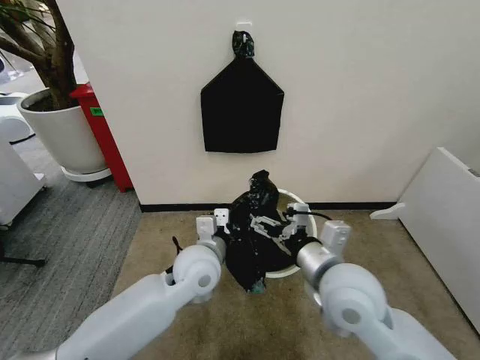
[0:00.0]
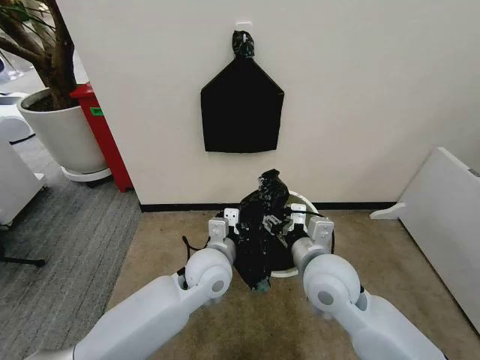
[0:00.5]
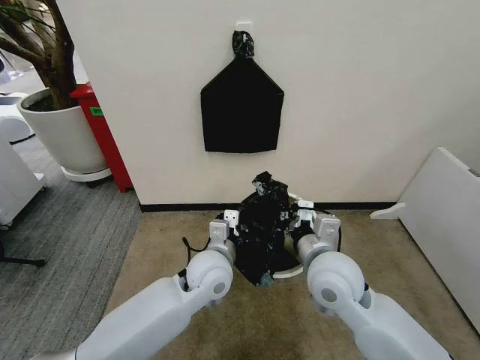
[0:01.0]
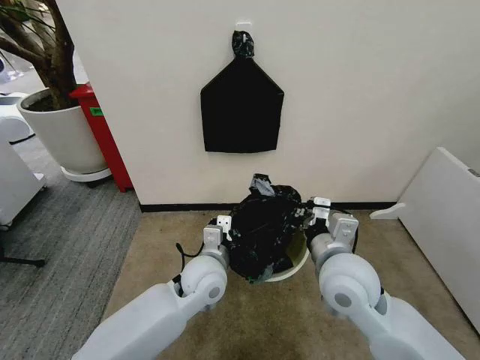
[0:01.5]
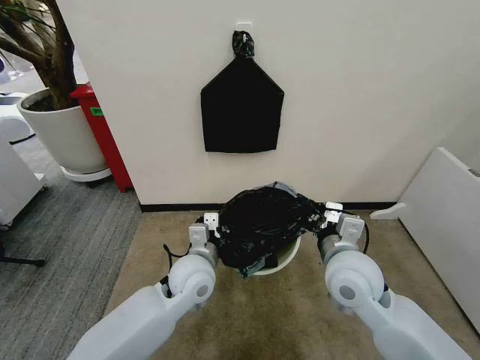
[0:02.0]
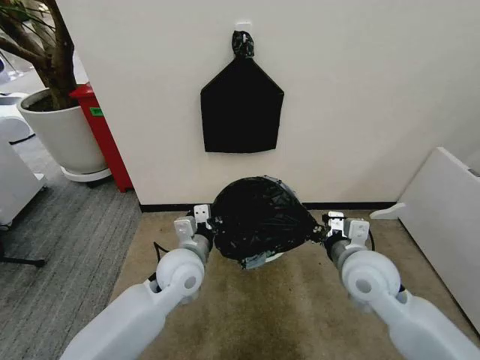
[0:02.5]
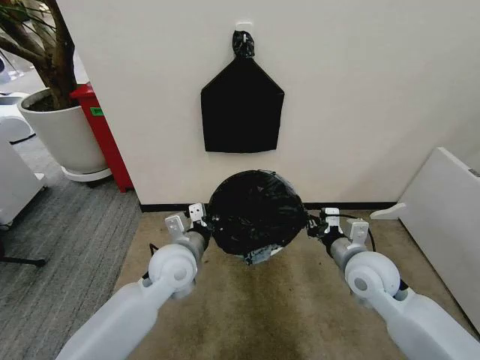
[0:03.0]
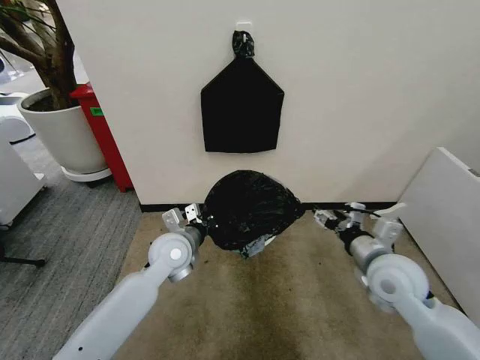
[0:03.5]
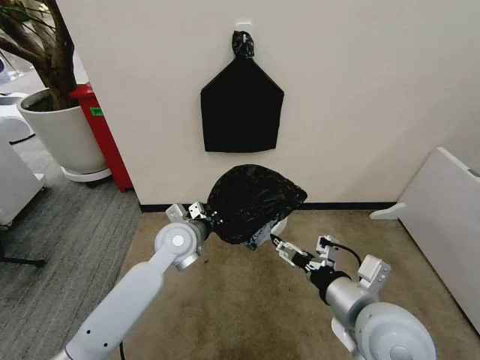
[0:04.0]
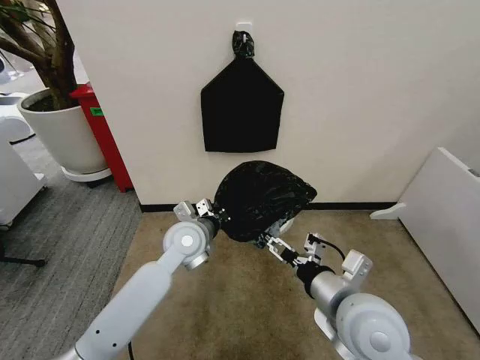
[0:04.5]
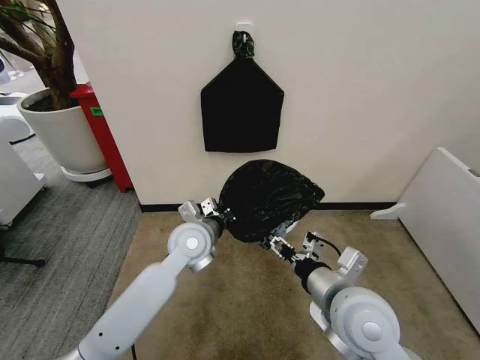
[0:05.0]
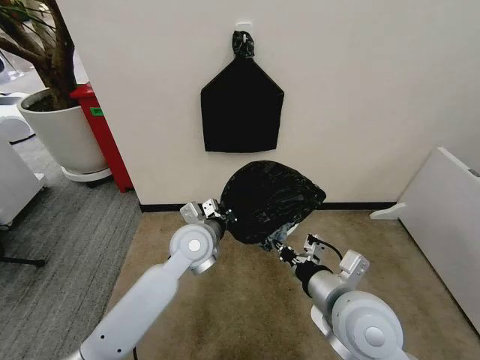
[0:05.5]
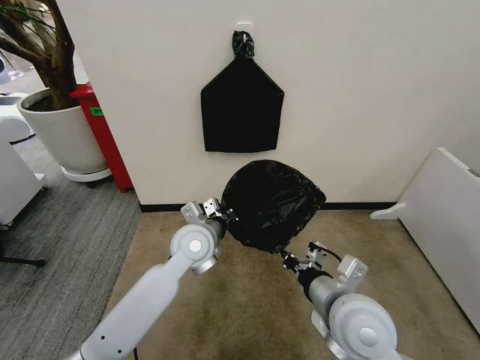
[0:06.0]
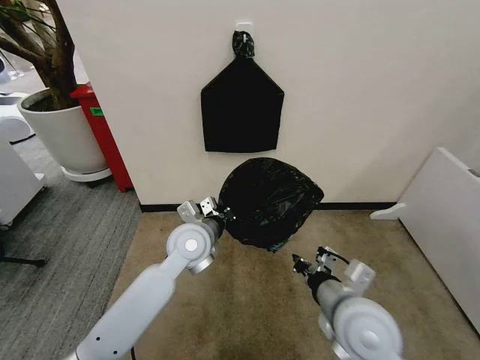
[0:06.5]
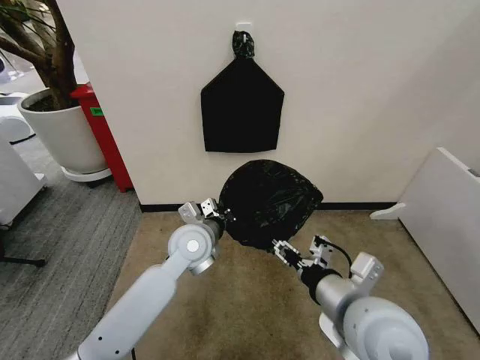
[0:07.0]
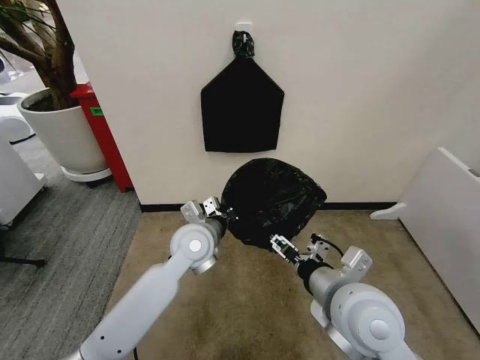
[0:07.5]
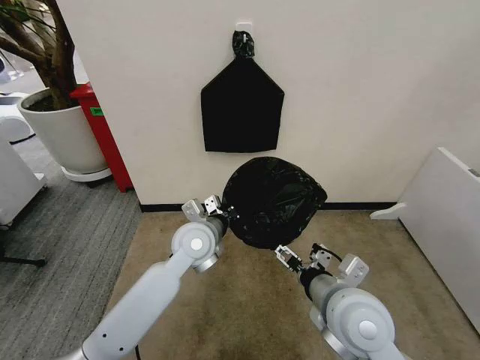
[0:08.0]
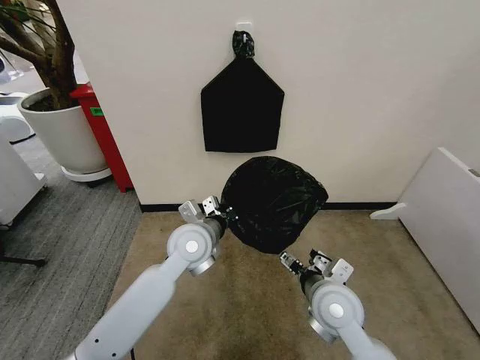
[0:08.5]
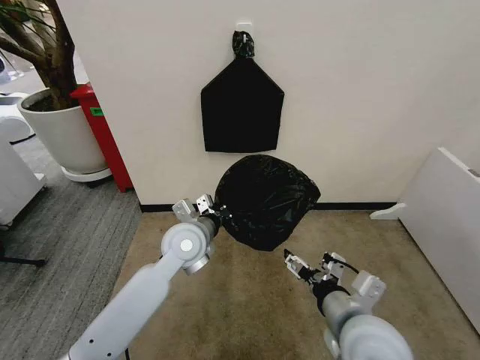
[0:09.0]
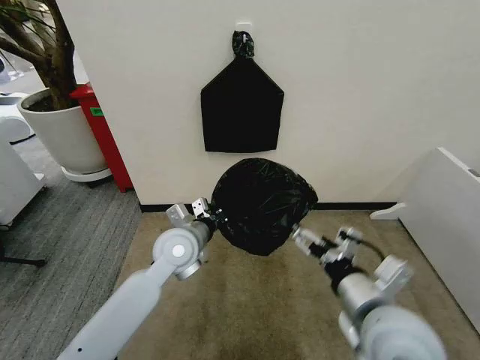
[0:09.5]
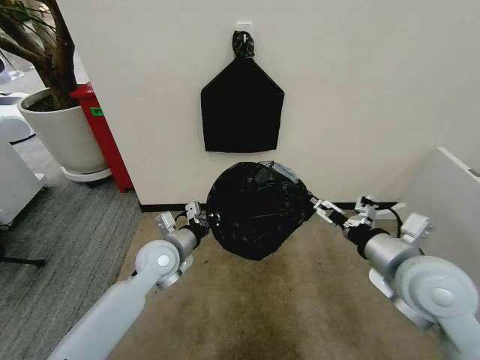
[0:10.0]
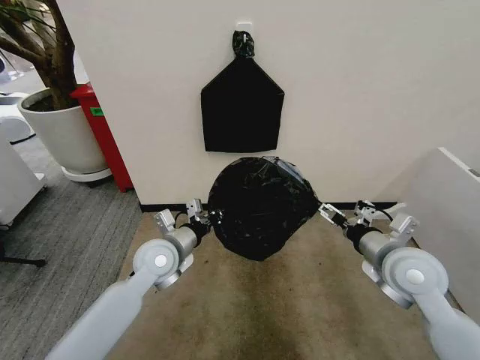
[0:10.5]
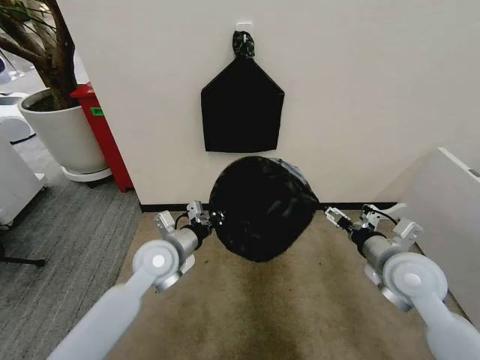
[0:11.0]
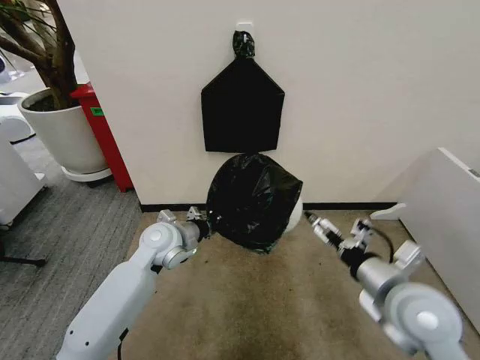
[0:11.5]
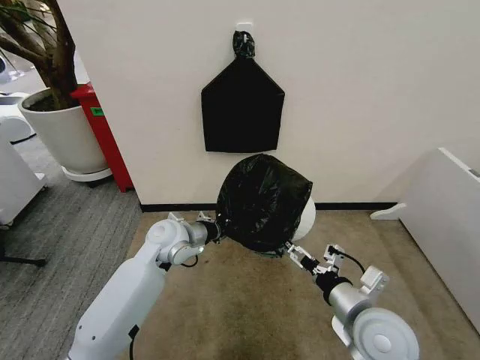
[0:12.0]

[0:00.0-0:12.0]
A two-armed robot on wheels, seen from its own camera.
Task of the whole recording: Place the garbage bag over the trash bin.
0:00.0 to 0:02.0: The right gripper shifts by roughly 5 cm, and closes its fingers.
0:02.0 to 0:04.0: The left gripper travels forward by approximately 5 cm; the right gripper heads backward, covering roughly 10 cm, and opens its fingers.
0:04.0 to 0:06.0: The left gripper ends up roughly 5 cm from where it was, while the right gripper closes up.
0:06.0 to 0:08.0: The right gripper opens.
0:08.0 to 0:10.0: The left gripper travels to the left by about 10 cm; the right gripper moves to the right and upward, approximately 10 cm.
0:10.0 to 0:12.0: The right gripper moves downward, some 10 cm.

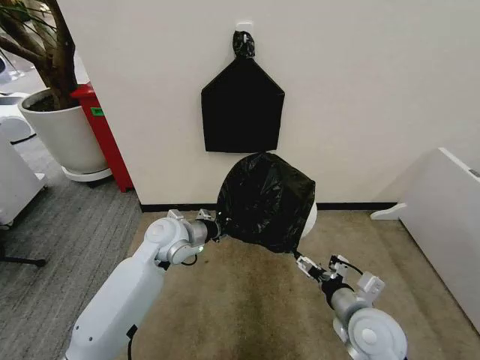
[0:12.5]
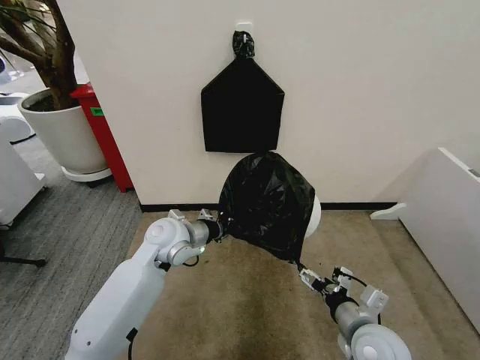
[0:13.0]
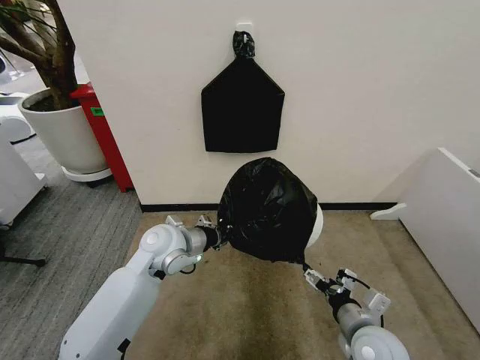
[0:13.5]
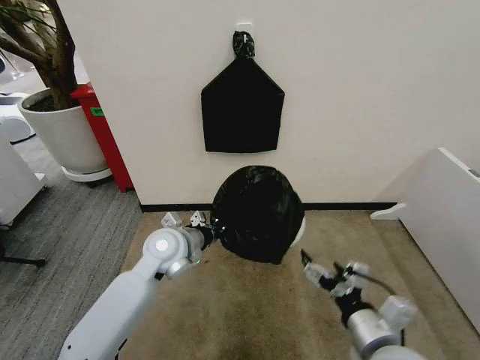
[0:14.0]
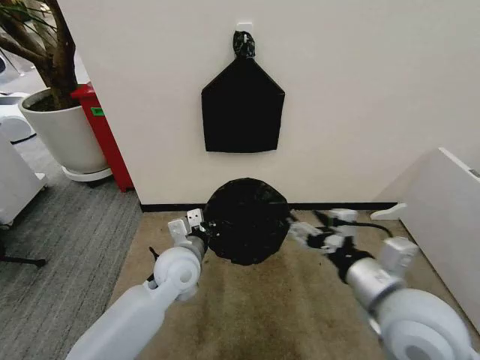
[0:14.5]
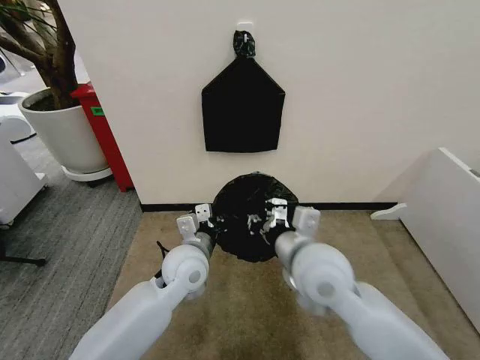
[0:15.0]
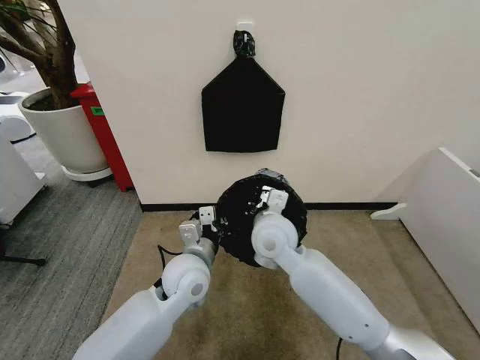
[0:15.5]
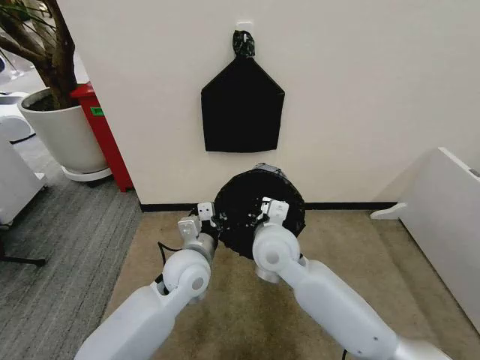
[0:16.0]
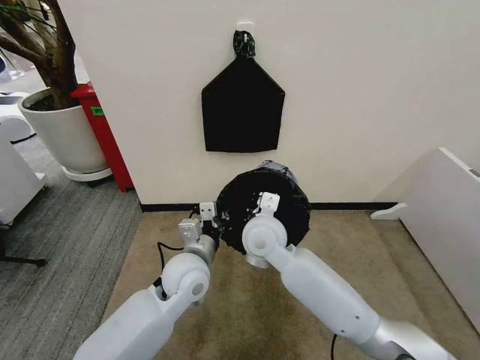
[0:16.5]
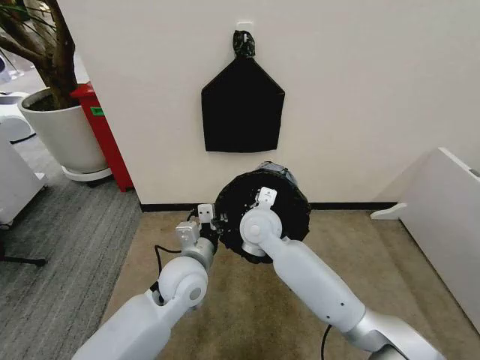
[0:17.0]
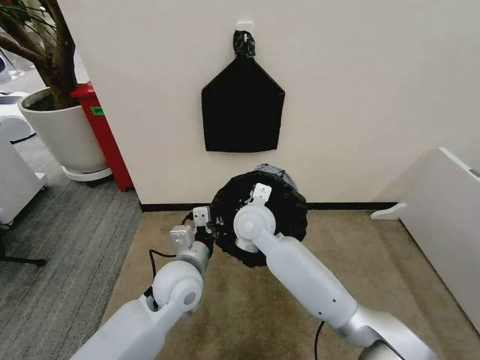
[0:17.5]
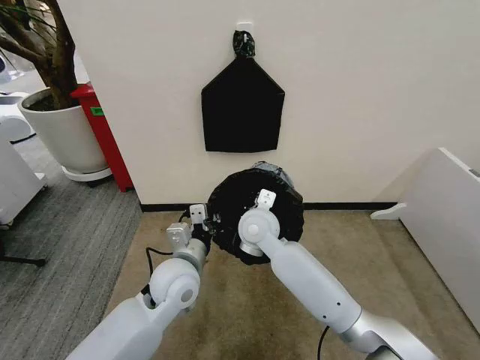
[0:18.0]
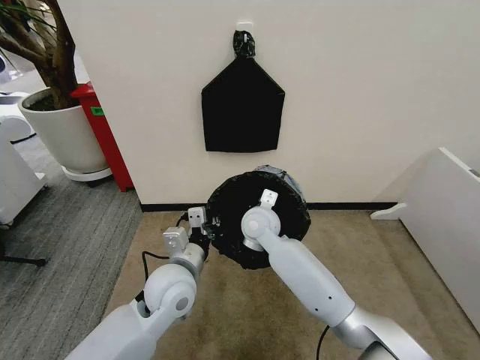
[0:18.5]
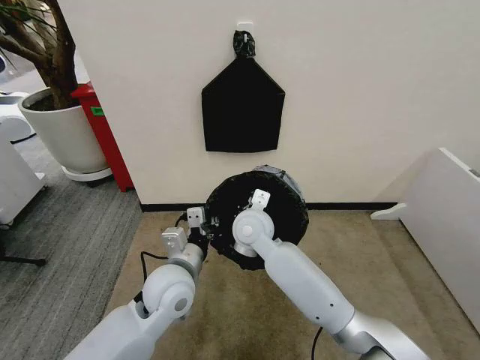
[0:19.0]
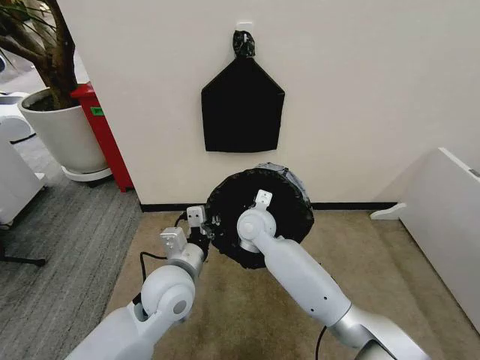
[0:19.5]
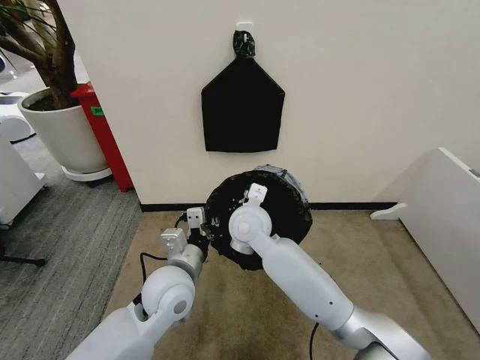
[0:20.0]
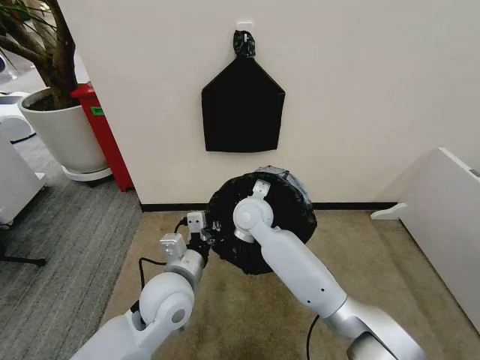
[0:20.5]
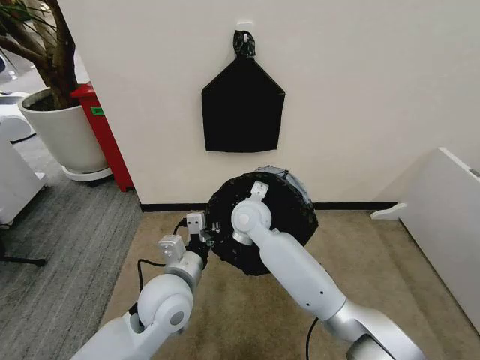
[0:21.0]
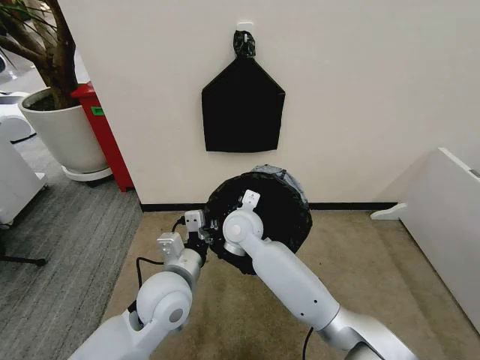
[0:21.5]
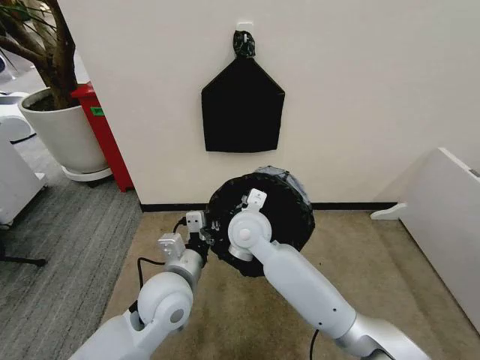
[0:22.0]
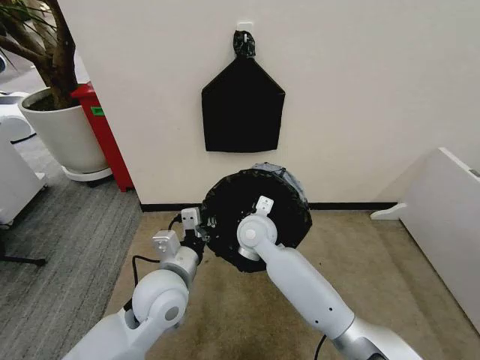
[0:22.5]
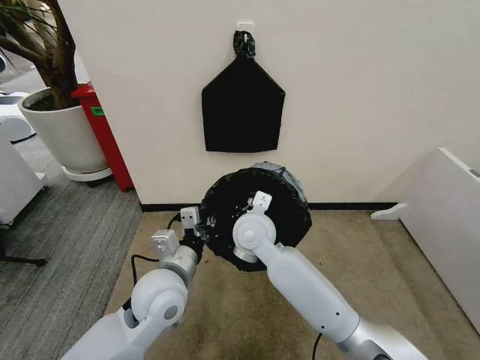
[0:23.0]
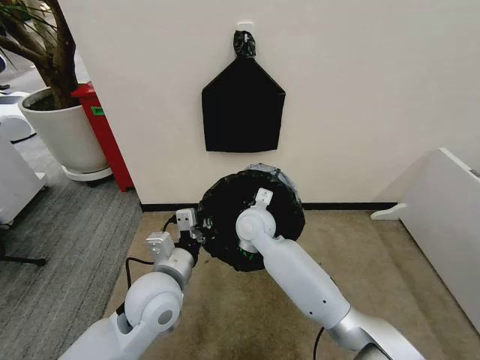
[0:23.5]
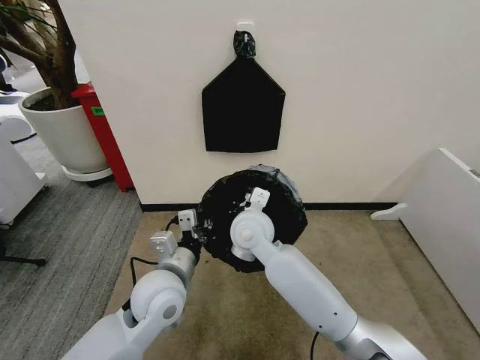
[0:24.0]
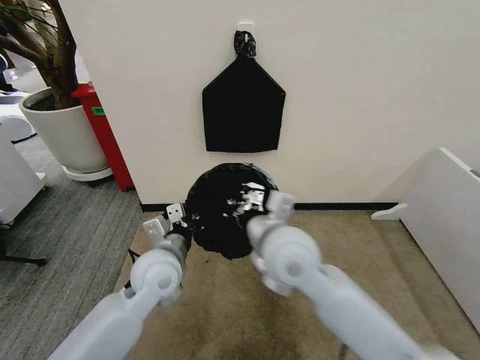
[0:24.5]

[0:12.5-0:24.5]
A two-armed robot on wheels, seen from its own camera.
Task of the whole recording: Place the garbage bag over the trash bin.
0:12.5 to 0:14.5: The right gripper goes approximately 15 cm upward. Meanwhile the left gripper moves backward, roughly 5 cm.
0:14.5 to 0:16.5: The right gripper goes roughly 25 cm to the left and forward, and closes.
0:16.5 to 0:18.5: The right gripper is displaced forward and downward by about 10 cm.
0:20.5 to 0:22.5: The grippers move only a little.
0:22.5 to 0:24.5: The right gripper heads backward and upward, covering roughly 15 cm.

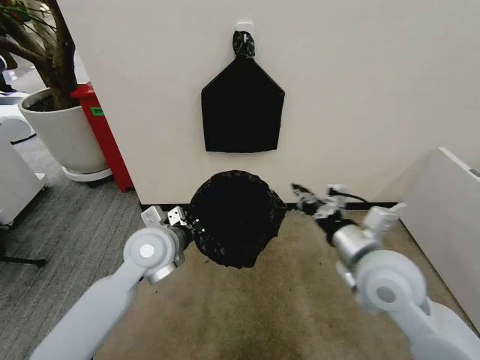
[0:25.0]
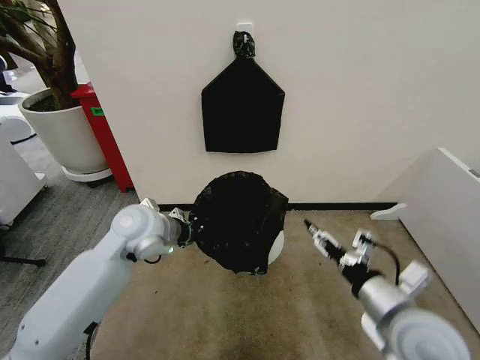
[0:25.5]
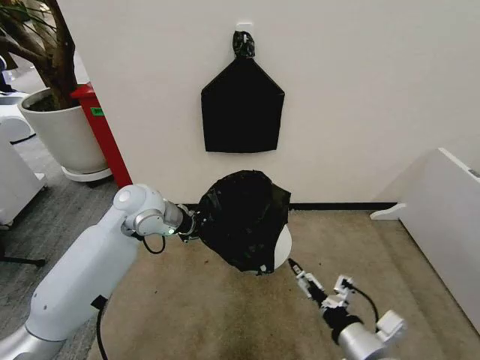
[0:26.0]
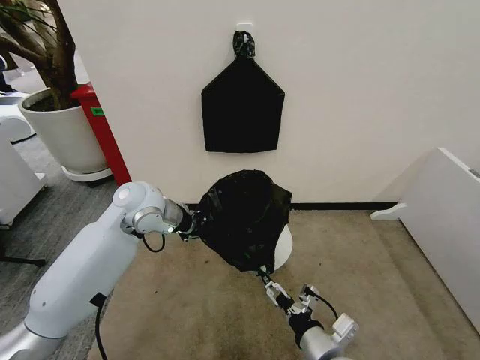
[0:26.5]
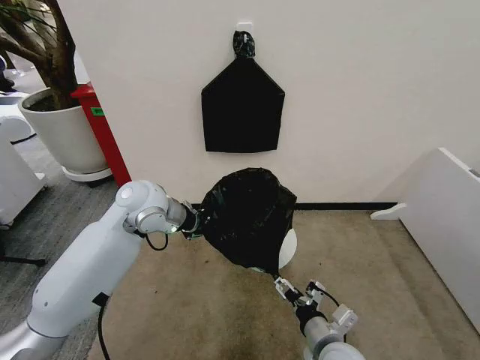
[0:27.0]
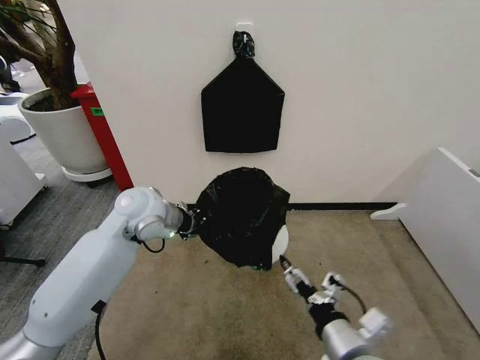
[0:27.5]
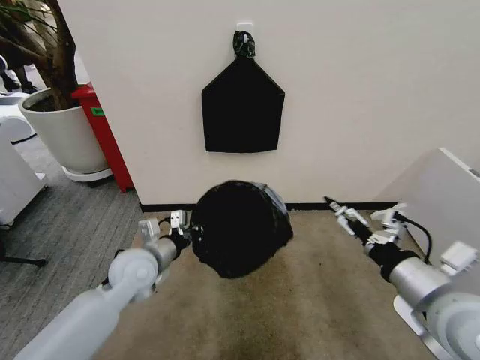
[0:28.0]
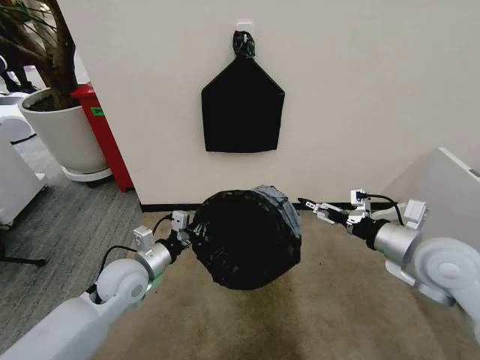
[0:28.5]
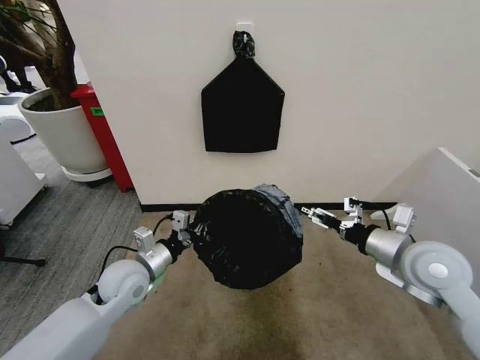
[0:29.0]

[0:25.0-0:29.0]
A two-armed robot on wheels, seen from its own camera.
Task of the whole recording: Place the garbage bag over the trash bin.
0:25.0 to 0:27.0: The right gripper travels downward and backward by approximately 20 cm, and opens its fingers, while the left gripper heads forward and upward, covering about 10 cm.
0:27.0 to 0:29.0: The left gripper goes some 15 cm downward and backward. Meanwhile the right gripper moves upward, to the right and forward, some 25 cm.
